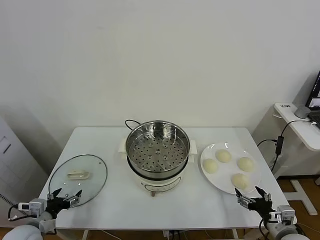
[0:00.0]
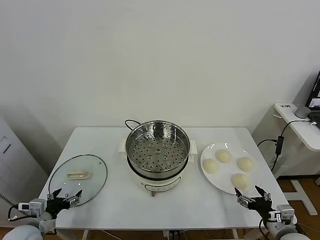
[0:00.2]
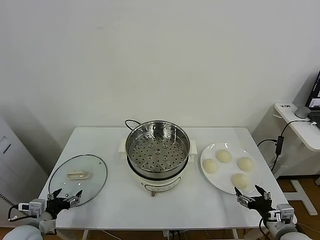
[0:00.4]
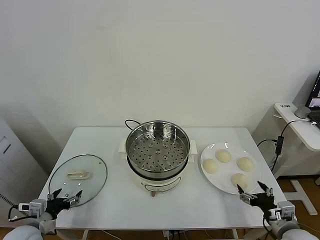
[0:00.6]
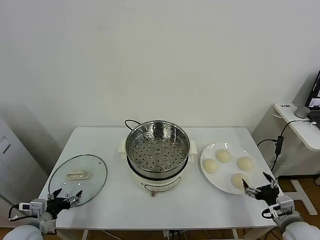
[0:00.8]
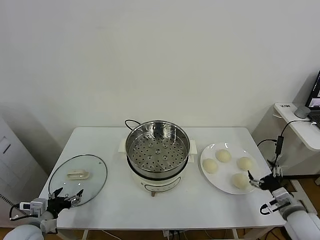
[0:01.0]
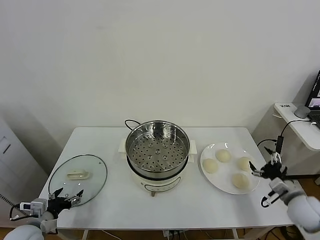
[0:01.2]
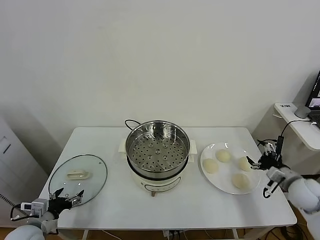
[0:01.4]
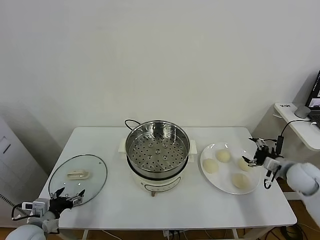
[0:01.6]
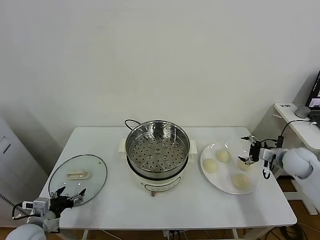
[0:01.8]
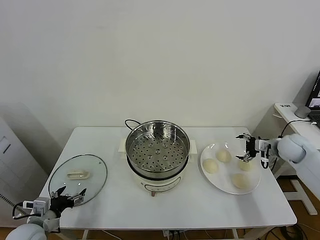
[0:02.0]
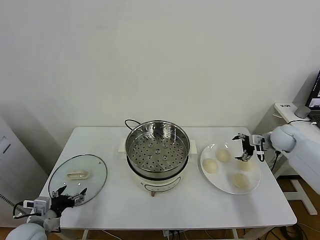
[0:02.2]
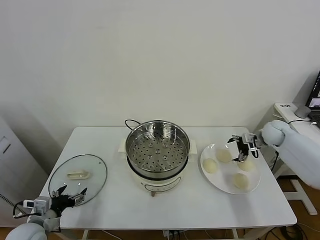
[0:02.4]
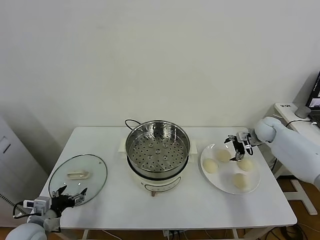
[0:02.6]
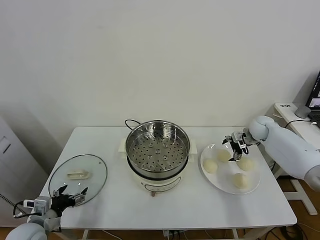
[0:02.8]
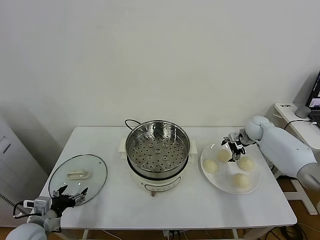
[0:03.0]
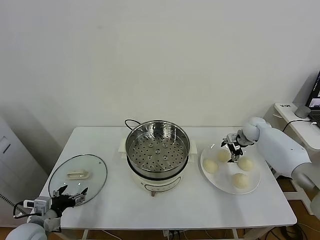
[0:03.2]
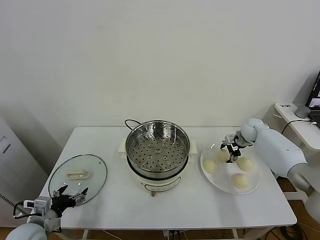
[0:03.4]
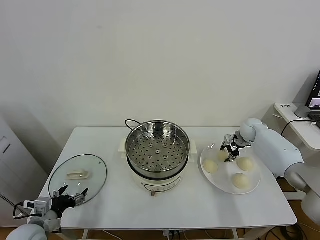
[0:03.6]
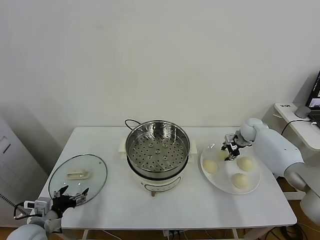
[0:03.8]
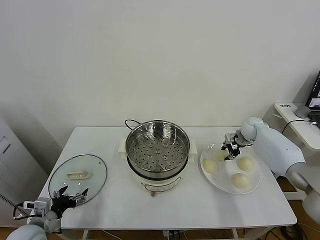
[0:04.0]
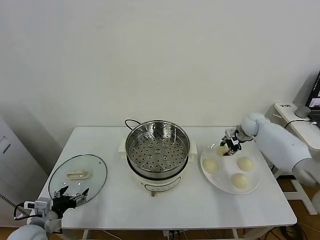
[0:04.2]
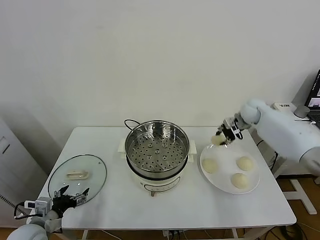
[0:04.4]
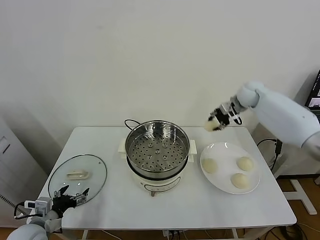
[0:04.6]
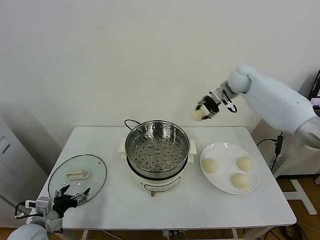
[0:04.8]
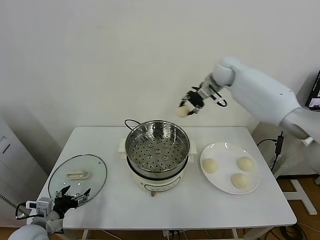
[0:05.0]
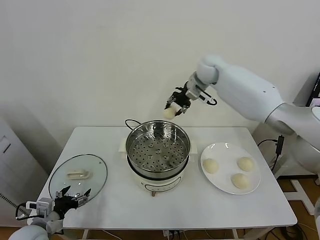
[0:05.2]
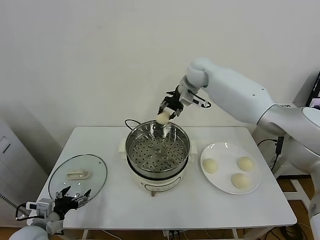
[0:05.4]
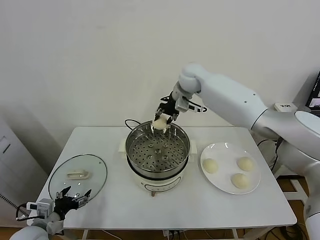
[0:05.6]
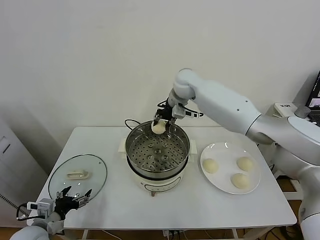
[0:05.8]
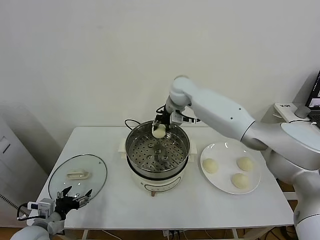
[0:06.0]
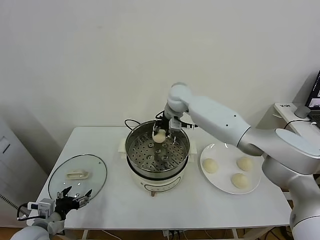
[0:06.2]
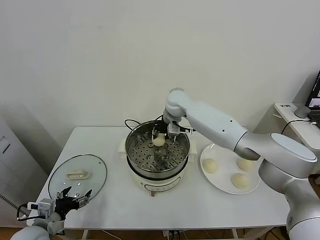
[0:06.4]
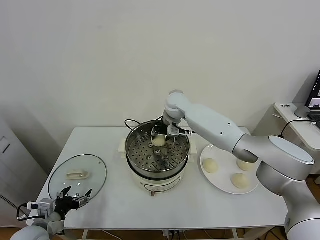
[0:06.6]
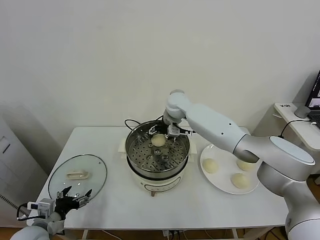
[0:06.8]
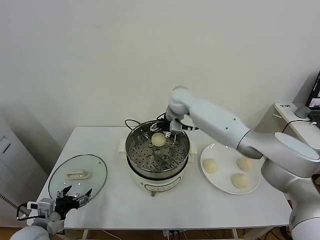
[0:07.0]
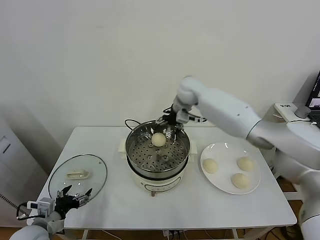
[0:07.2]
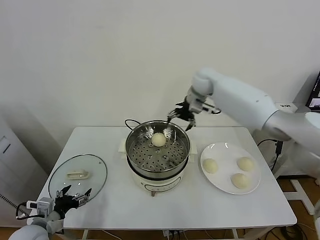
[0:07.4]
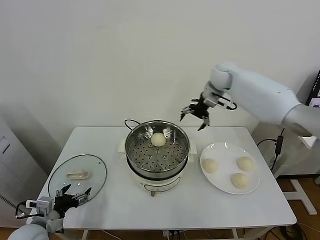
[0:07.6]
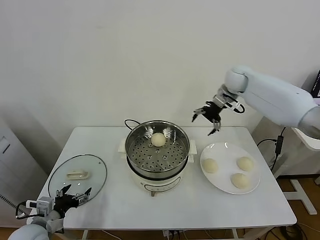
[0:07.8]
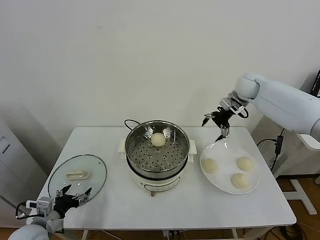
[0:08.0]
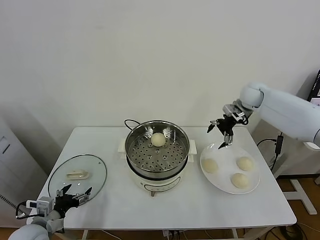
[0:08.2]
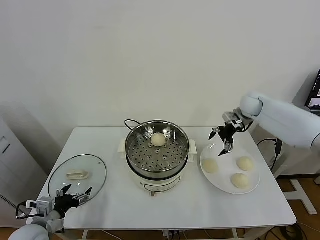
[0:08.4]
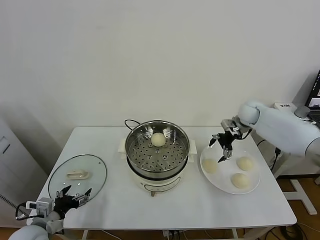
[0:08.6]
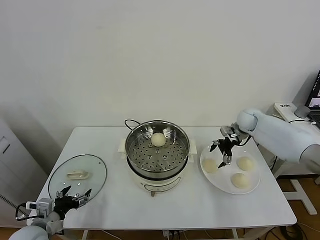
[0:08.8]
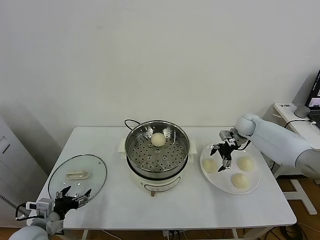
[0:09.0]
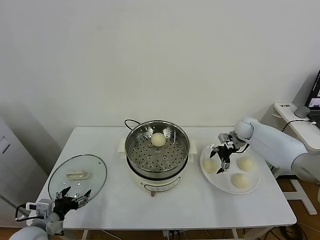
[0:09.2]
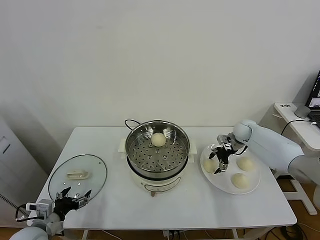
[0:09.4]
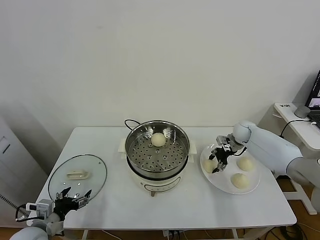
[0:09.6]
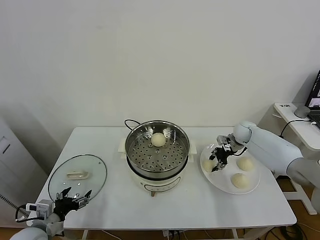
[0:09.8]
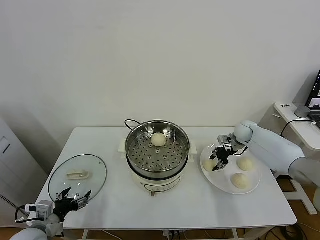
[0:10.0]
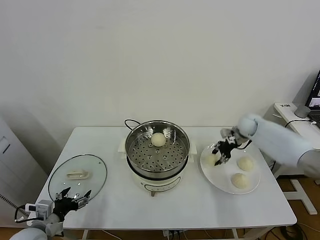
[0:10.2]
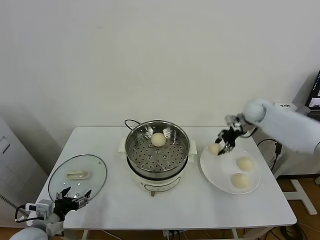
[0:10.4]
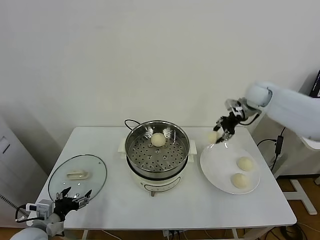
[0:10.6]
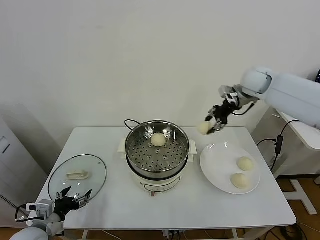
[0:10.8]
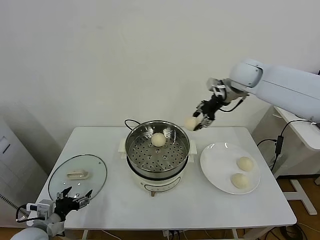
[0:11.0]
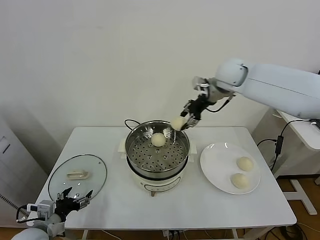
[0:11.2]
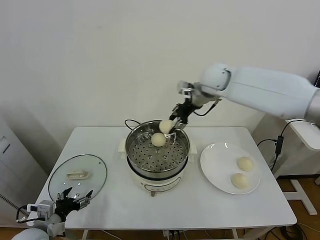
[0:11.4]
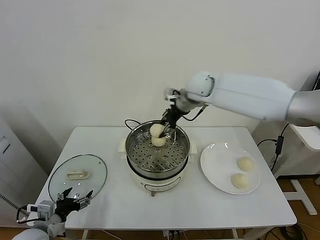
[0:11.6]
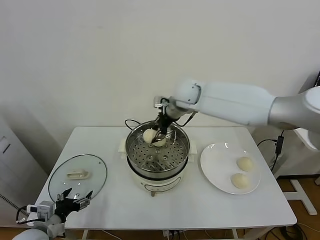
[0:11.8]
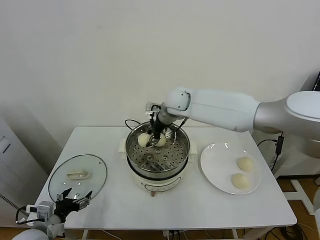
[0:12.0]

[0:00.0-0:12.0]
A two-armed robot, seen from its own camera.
Task of the whole recording: take steamed baozi put them in steamer.
Step, 0:00.0 to 0:03.6: Grasp the baozi in the plate with right gripper.
Step, 0:03.8 to 0:06.8: Place the baozi on the steamer with right gripper.
Step, 0:07.0 to 0:09.6: Grasp the baozi in the plate with right gripper.
0:01.6 to 0:03.0: The right gripper is displaced forward by roughly 20 cm.
0:03.0 to 0:04.4: The right gripper heads upward, covering roughly 15 cm, and closes.
0:04.4 to 0:06.0: The right gripper shifts about 30 cm to the left.
0:06.0 to 0:07.6: The right gripper goes some 20 cm to the right, and opens its fingers.
0:07.6 to 0:09.0: The right gripper heads downward and to the right, covering some 25 cm.
0:09.0 to 0:10.4: The right gripper shifts about 15 cm upward, and closes up.
0:10.4 to 0:12.0: The right gripper goes about 30 cm to the left.

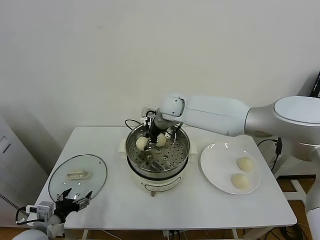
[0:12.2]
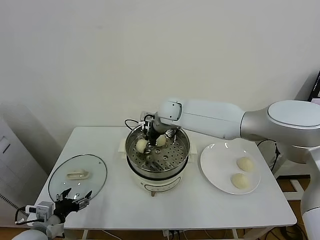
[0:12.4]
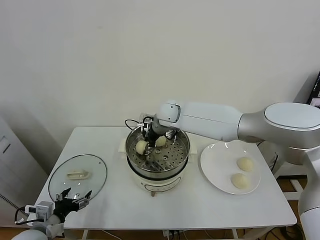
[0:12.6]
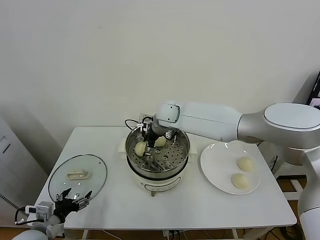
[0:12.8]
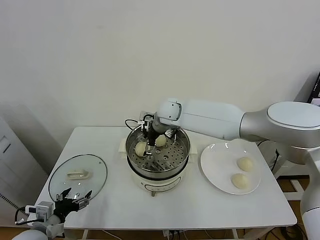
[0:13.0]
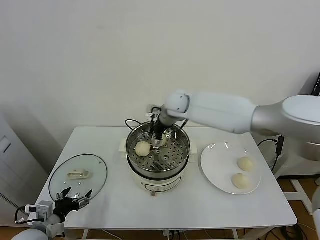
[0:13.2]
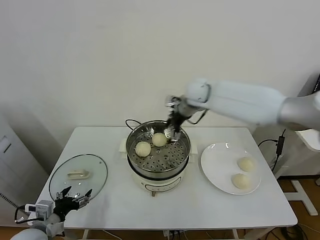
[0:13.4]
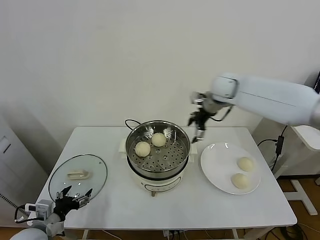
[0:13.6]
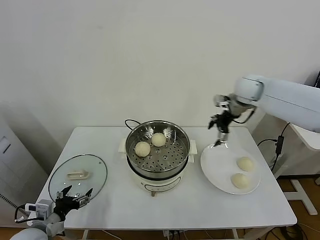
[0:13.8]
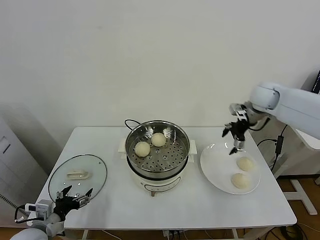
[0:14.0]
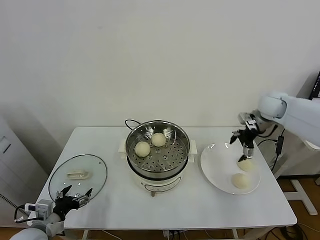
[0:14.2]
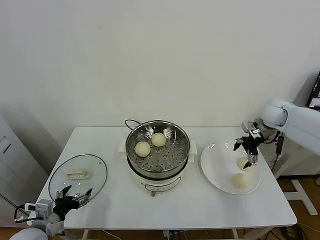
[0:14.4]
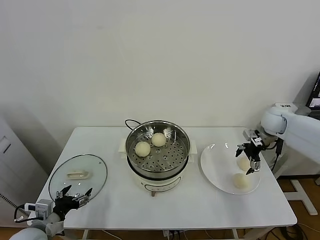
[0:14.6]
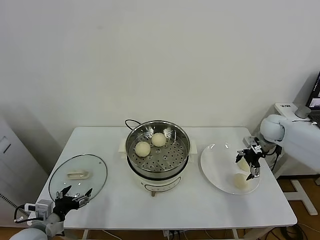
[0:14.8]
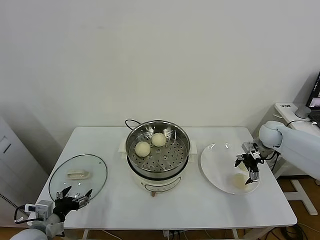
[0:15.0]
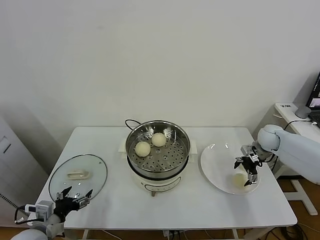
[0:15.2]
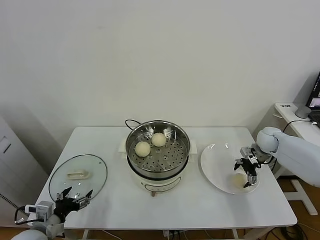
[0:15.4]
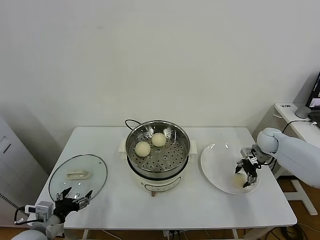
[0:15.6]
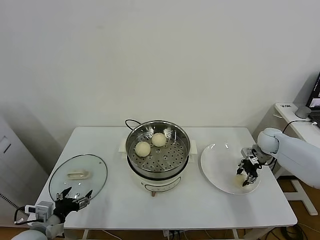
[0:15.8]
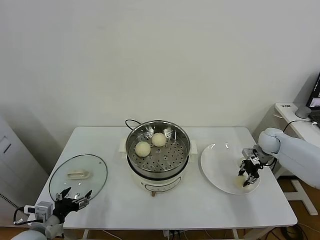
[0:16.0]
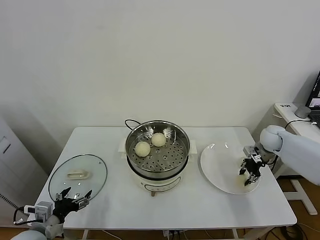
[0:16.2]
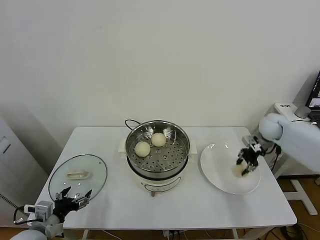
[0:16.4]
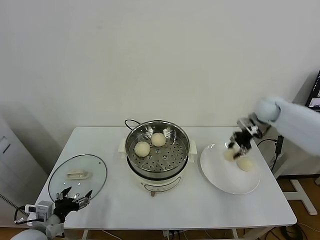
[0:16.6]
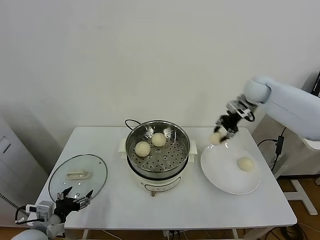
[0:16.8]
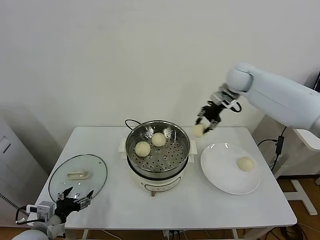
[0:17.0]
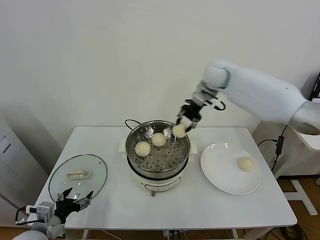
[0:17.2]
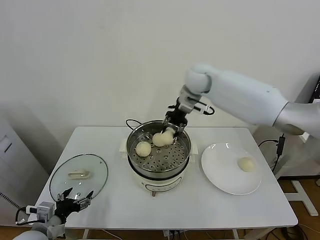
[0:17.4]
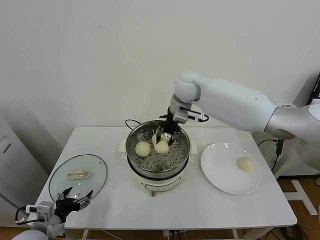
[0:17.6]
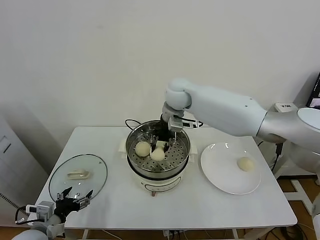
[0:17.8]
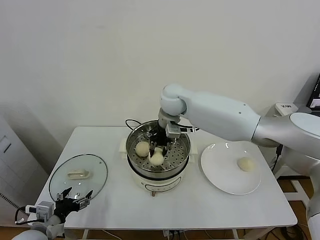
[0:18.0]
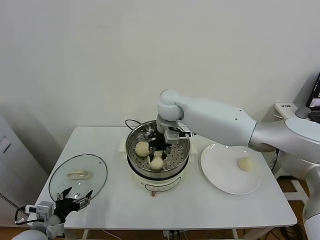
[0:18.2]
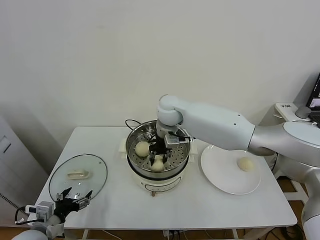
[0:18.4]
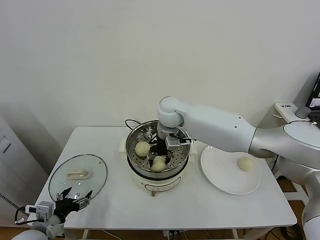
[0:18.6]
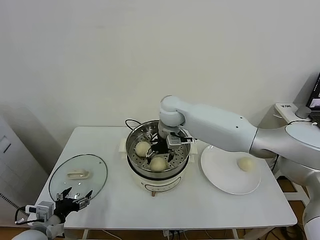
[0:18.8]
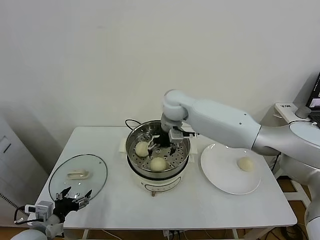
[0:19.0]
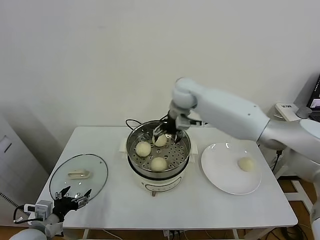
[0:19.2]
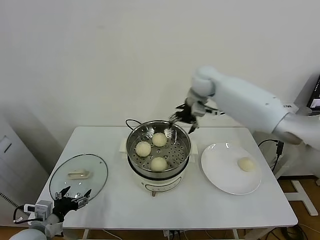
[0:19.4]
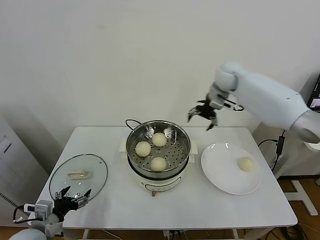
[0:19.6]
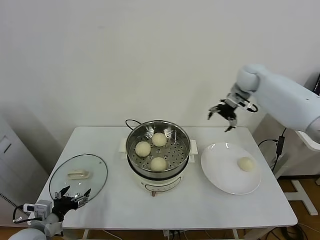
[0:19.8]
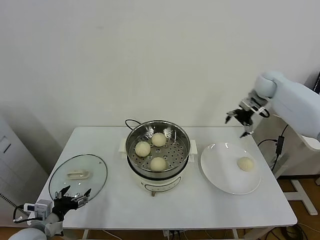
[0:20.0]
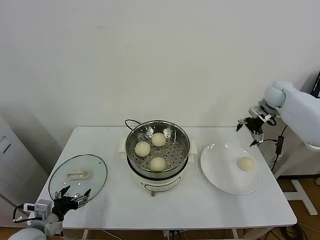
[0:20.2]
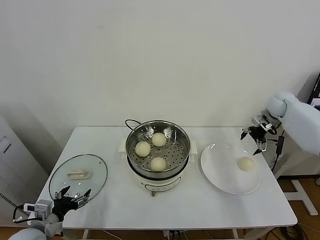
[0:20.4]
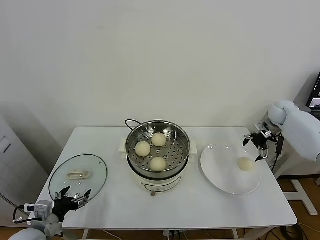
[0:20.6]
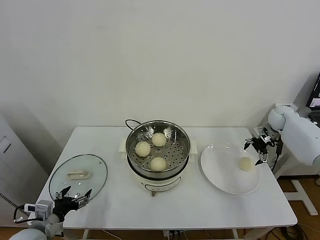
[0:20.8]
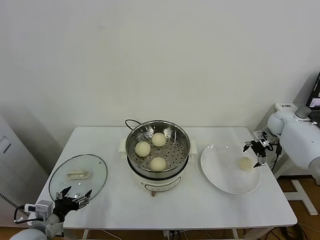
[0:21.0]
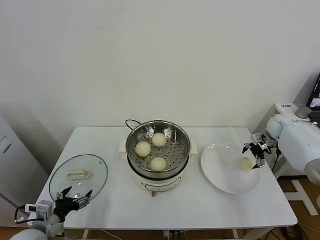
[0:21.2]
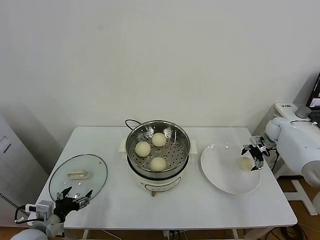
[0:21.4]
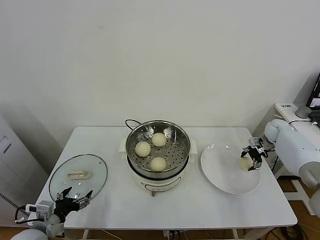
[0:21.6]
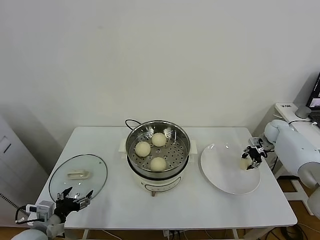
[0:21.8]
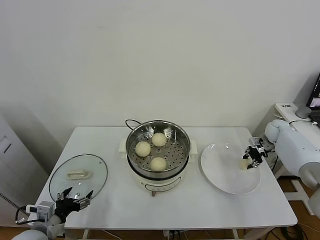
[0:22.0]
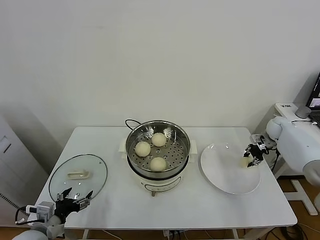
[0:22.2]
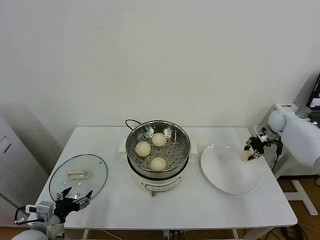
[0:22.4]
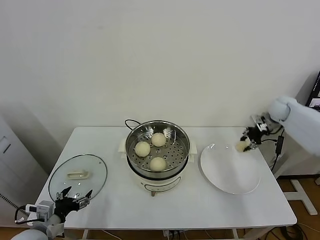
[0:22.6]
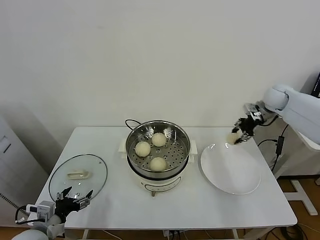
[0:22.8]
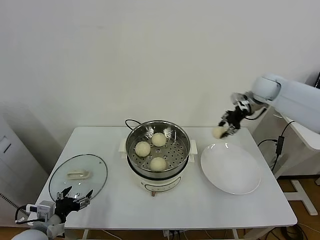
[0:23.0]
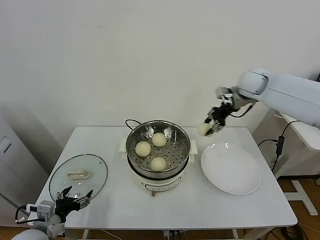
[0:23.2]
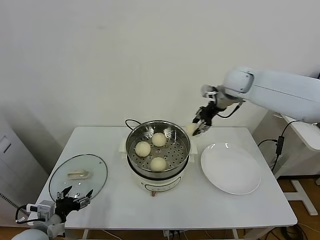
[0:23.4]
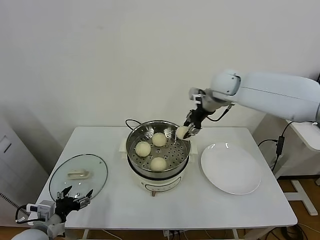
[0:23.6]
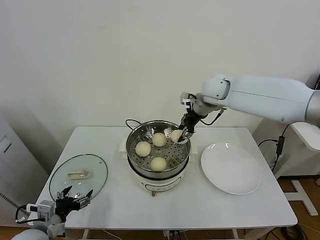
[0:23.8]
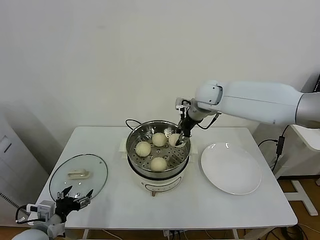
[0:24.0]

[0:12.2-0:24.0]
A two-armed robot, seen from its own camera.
Task of the whole recording: take steamed baozi put them in steamer.
Step, 0:13.2 to 0:15.8: Grasp the baozi in the plate with right gripper.
Step, 0:16.0 to 0:18.8: Place the baozi on the steamer with right gripper.
Step, 0:19.0 to 0:21.8: Grasp the baozi in the plate with right gripper.
0:12.2 to 0:13.6: The right gripper travels to the right by roughly 20 cm, and opens up.
0:13.6 to 0:15.2: The right gripper moves downward and to the right, roughly 25 cm.
0:15.2 to 0:16.6: The right gripper goes about 15 cm upward, and closes.
0:16.6 to 0:18.2: The right gripper heads to the left, covering roughly 35 cm.
0:18.2 to 0:19.6: The right gripper heads to the right, covering roughly 25 cm, and opens.
0:19.6 to 0:21.0: The right gripper goes about 30 cm to the right and downward.
0:21.0 to 0:22.6: The right gripper is displaced upward by some 10 cm, and closes up.
0:22.6 to 0:24.0: The right gripper goes some 30 cm to the left.
